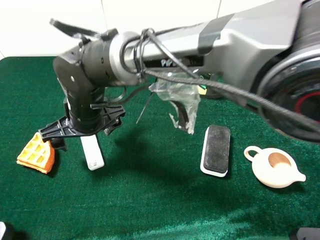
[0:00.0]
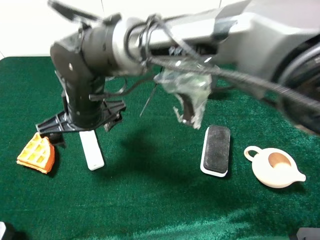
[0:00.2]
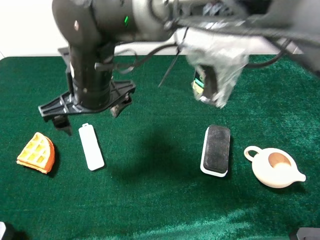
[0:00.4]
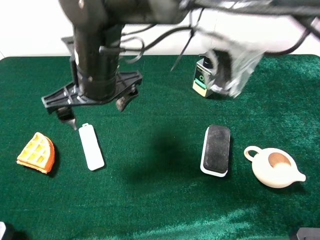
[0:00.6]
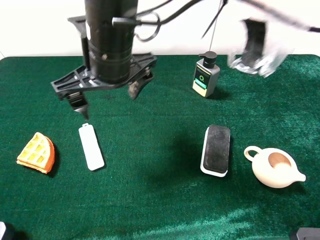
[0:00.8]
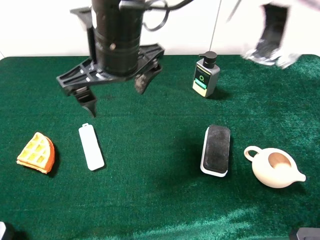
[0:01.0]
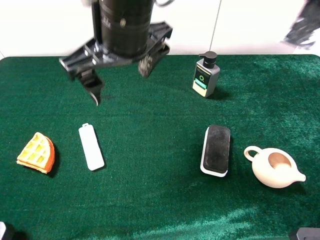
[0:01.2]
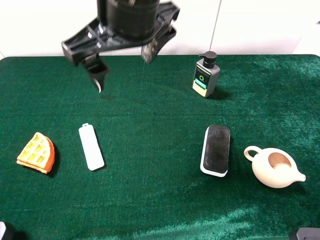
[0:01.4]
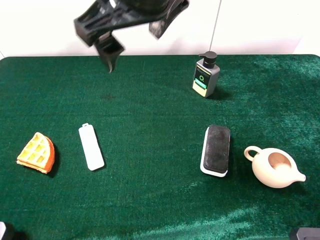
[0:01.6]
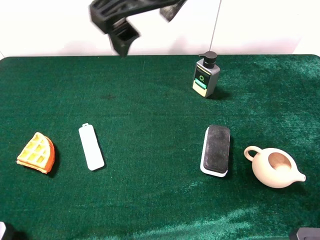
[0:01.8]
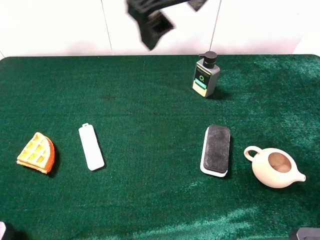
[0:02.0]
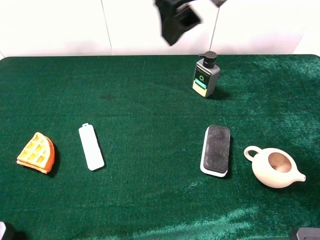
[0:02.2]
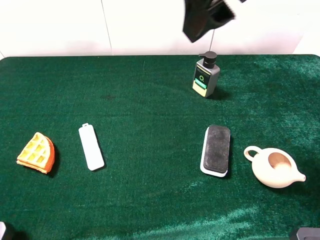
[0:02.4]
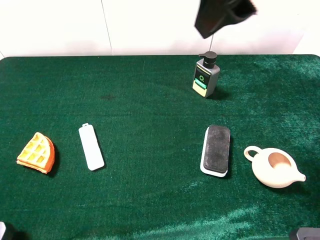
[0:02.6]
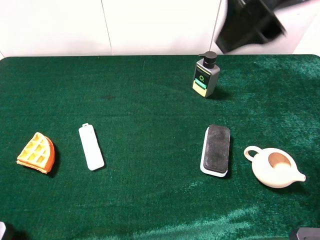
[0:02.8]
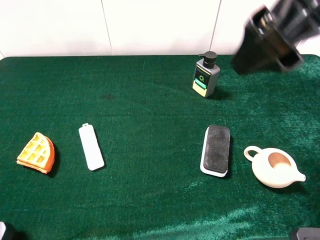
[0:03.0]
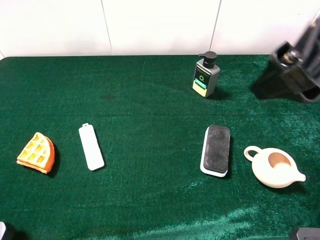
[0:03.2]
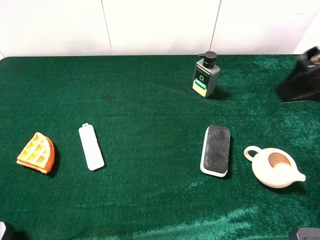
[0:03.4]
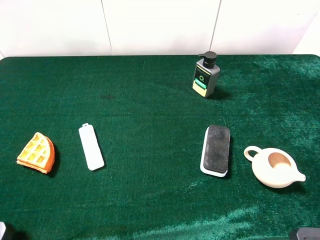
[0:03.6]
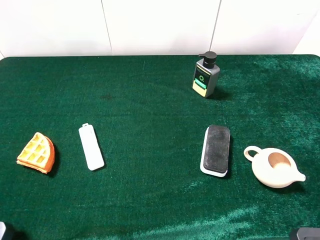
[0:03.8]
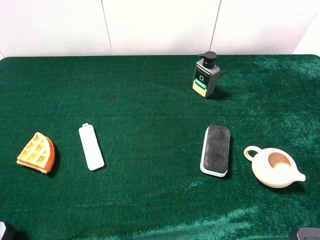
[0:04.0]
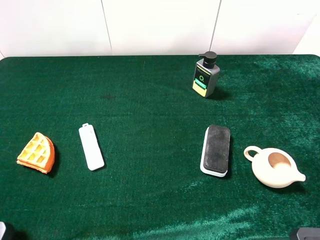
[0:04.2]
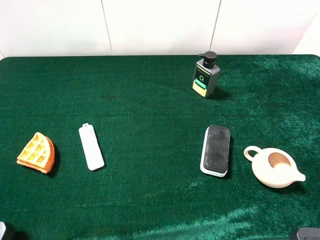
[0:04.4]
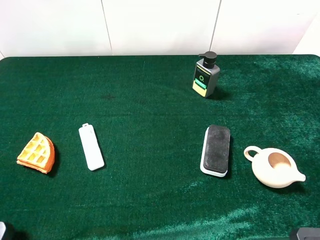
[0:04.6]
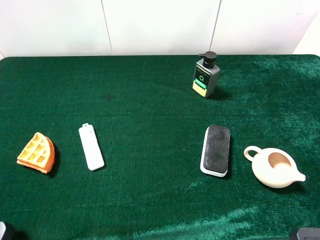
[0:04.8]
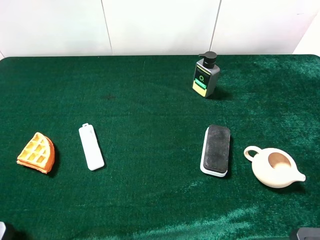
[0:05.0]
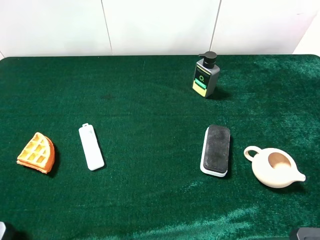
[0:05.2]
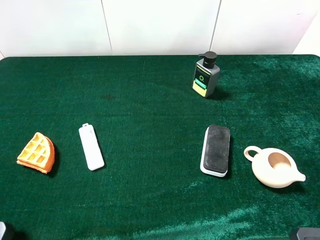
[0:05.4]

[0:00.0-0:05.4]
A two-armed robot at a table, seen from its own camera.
Task of the whole recording: the gripper move the object.
0:00.0 to 0:01.4: The right gripper shifts some 20 cm upward and to the right.
0:01.4 to 0:02.8: The right gripper travels to the right by approximately 15 cm.
0:02.8 to 0:04.0: The right gripper travels to the right, backward and downward by roughly 25 cm.
